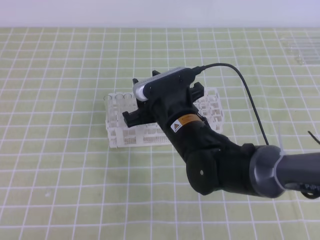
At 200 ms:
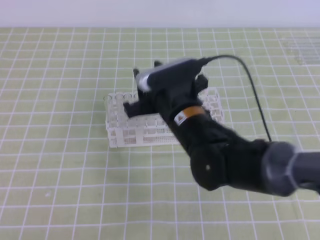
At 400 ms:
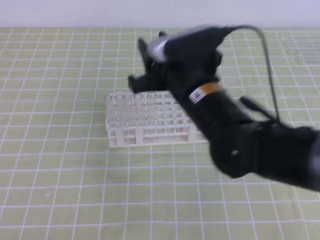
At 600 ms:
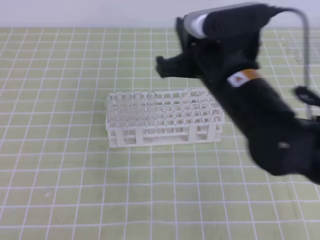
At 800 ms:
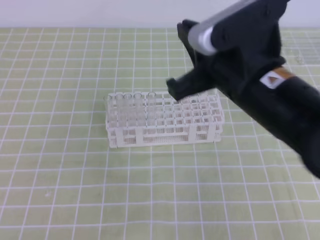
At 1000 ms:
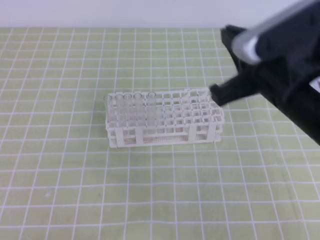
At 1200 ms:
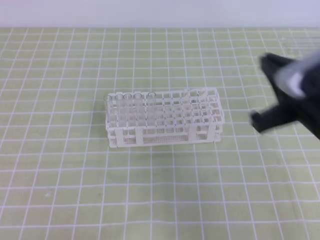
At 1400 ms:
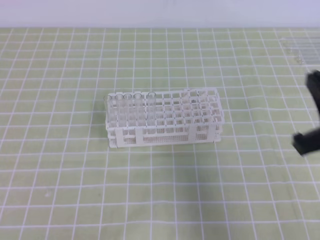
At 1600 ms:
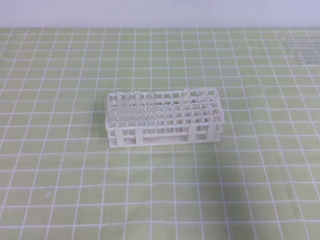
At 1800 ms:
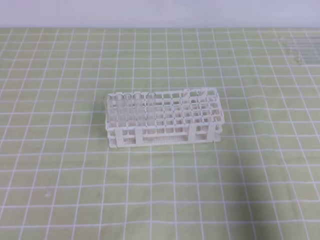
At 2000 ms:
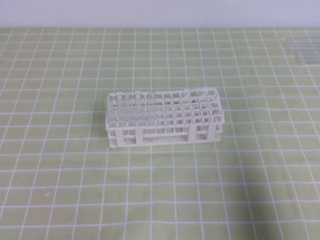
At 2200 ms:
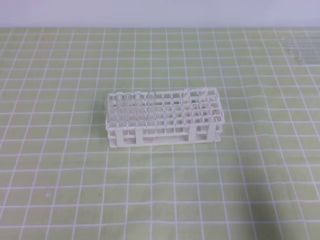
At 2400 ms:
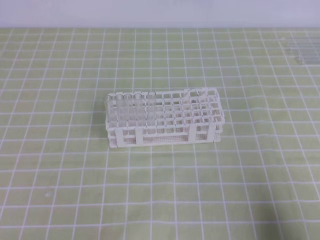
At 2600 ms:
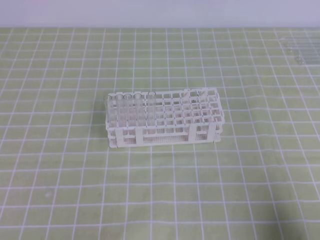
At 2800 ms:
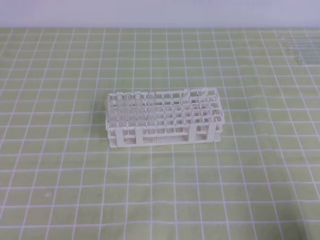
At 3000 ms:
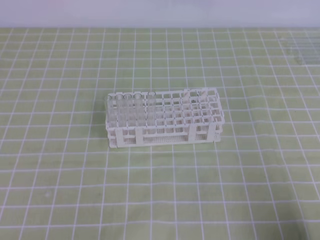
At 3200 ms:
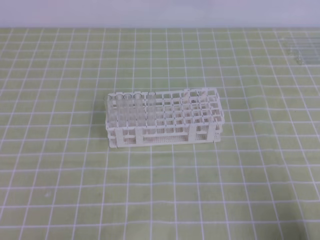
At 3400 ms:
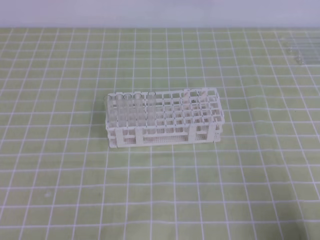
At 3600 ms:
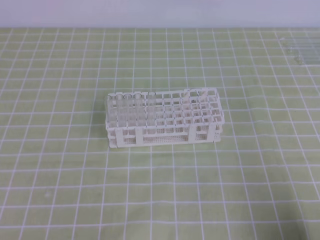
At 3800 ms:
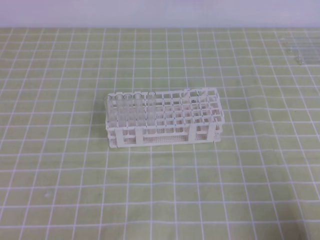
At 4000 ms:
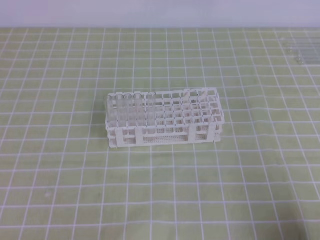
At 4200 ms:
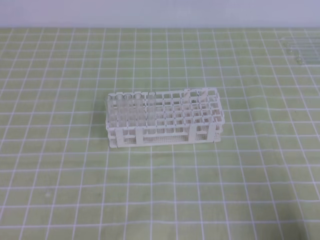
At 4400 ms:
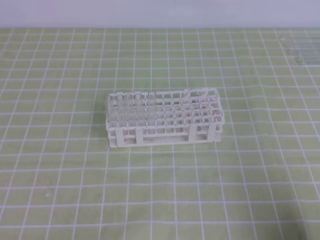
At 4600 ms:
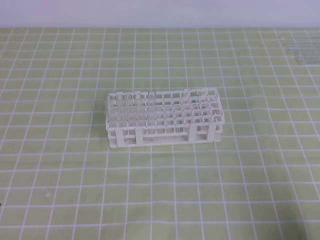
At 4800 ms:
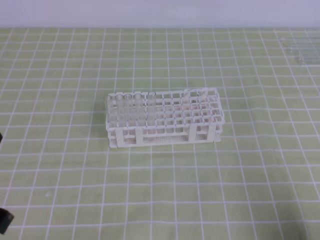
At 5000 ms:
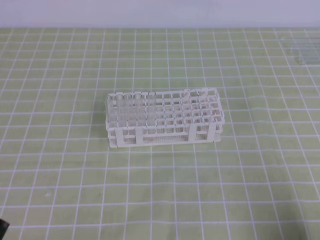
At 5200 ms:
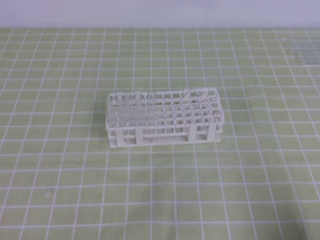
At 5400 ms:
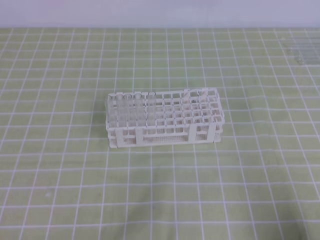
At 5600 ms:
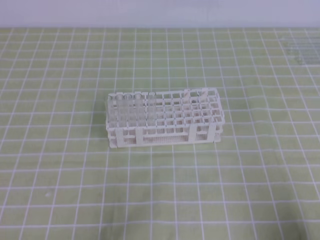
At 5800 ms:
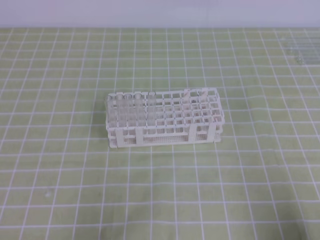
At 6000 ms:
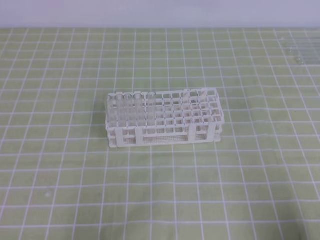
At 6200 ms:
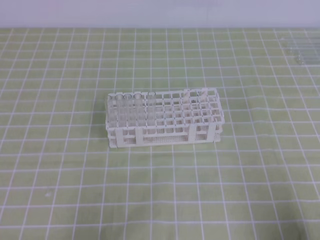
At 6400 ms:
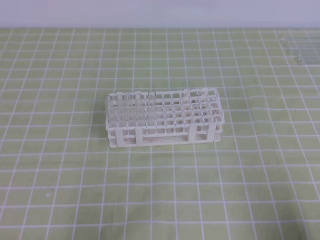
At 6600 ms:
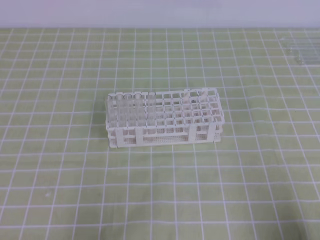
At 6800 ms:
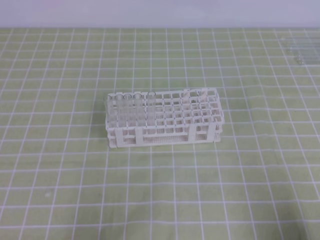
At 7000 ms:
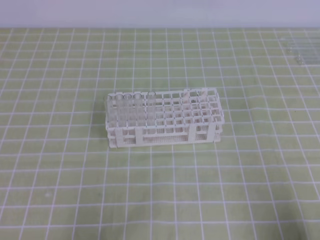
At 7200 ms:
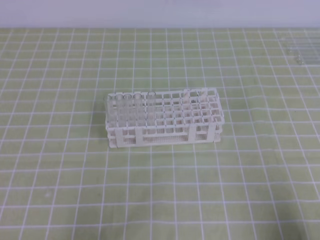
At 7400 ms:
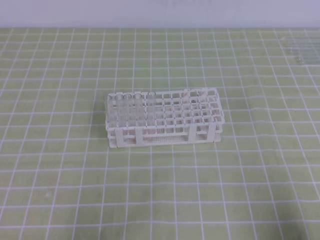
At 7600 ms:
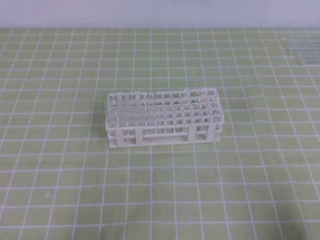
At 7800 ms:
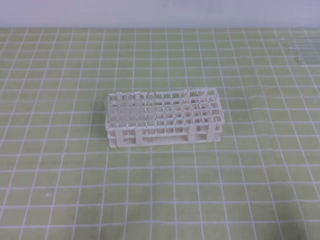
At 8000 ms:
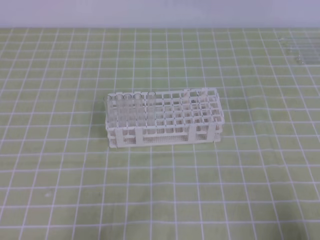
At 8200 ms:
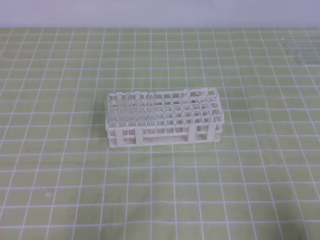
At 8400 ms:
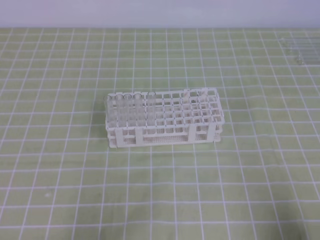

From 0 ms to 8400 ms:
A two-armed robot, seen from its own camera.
From 0 ms to 1400 ms: The right gripper travels to the right, backward and upward by about 25 cm, and closes up.
From 1400 ms to 2800 ms: The right gripper moves downward, backward and to the right, about 20 cm.
From 7000 ms to 8400 ms: The two grippers keep their place.
